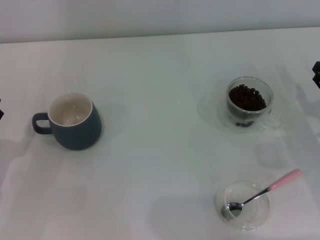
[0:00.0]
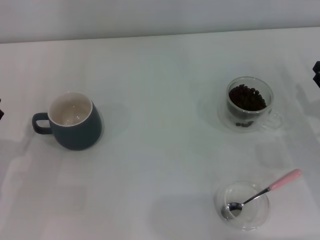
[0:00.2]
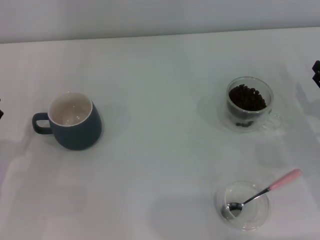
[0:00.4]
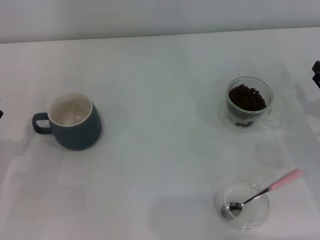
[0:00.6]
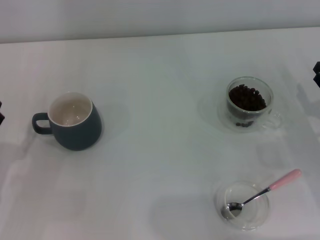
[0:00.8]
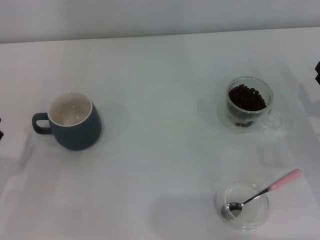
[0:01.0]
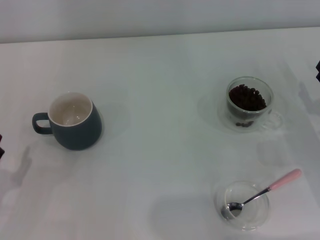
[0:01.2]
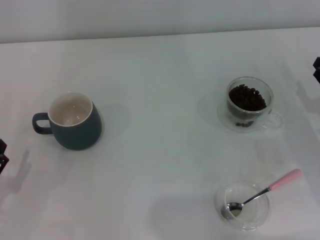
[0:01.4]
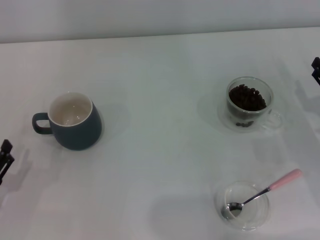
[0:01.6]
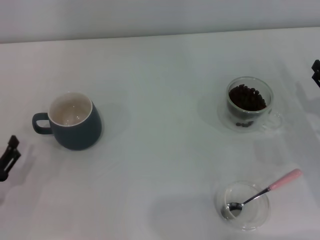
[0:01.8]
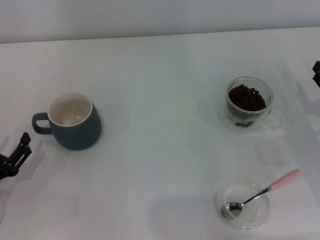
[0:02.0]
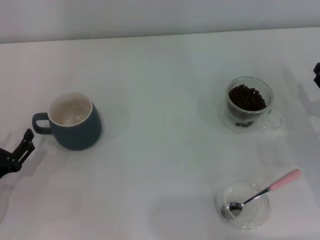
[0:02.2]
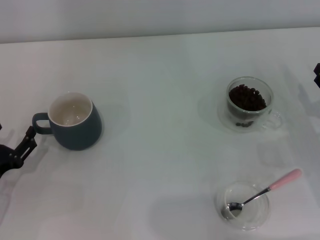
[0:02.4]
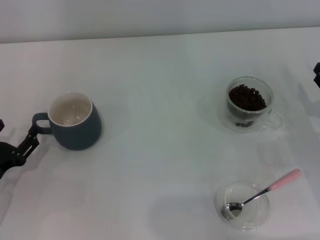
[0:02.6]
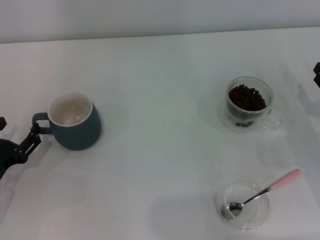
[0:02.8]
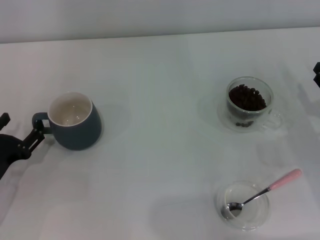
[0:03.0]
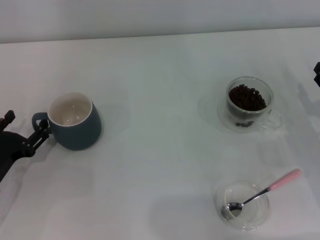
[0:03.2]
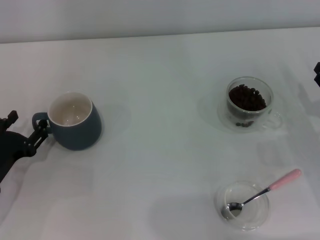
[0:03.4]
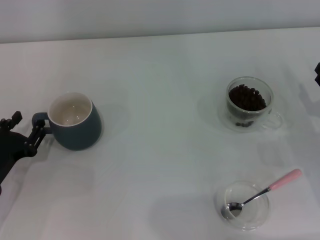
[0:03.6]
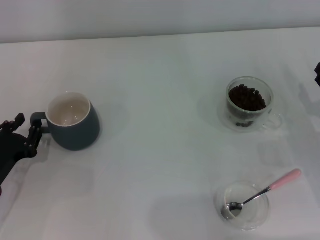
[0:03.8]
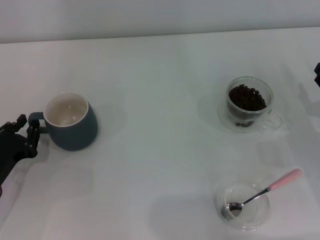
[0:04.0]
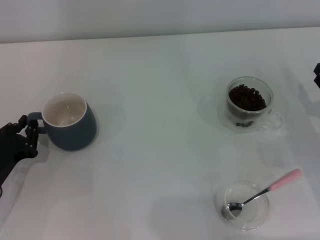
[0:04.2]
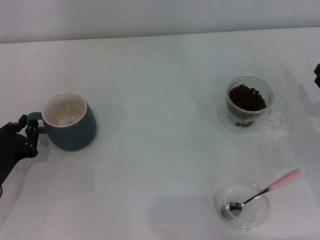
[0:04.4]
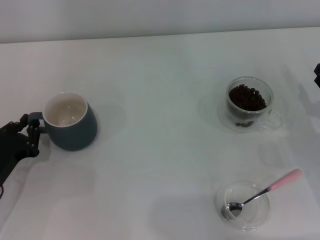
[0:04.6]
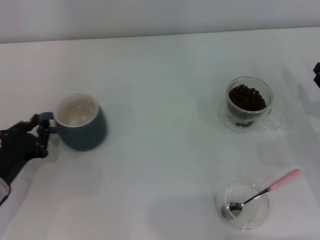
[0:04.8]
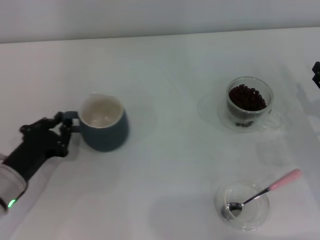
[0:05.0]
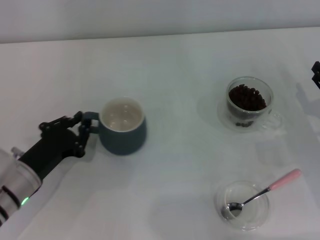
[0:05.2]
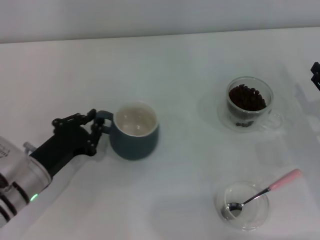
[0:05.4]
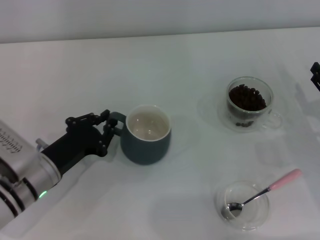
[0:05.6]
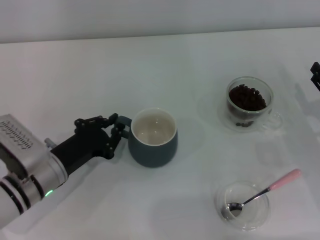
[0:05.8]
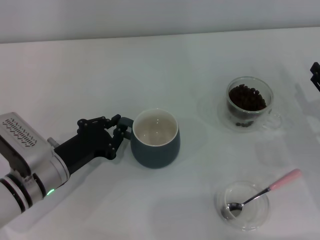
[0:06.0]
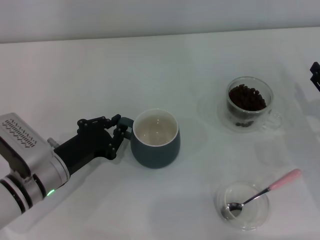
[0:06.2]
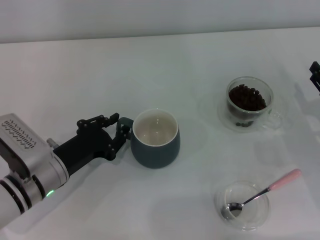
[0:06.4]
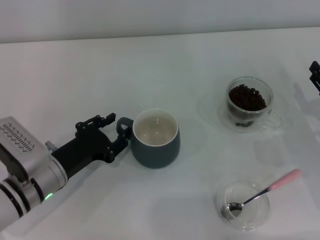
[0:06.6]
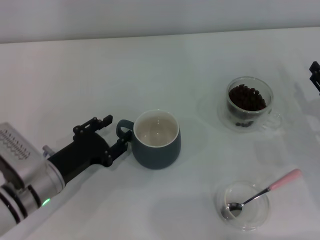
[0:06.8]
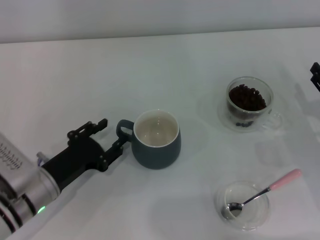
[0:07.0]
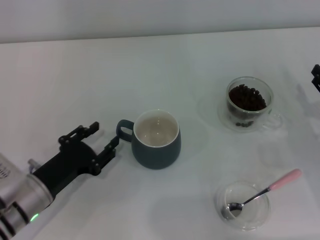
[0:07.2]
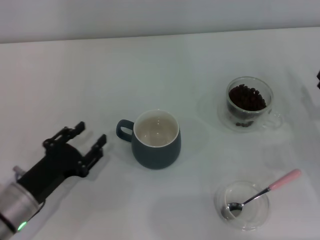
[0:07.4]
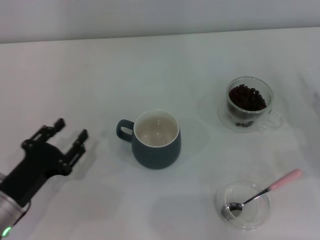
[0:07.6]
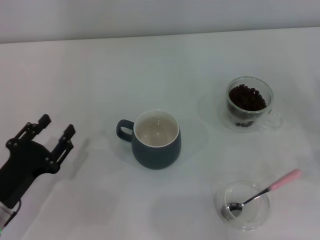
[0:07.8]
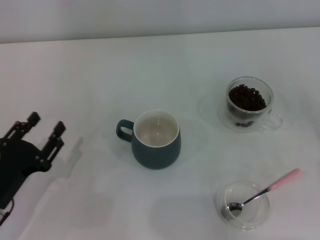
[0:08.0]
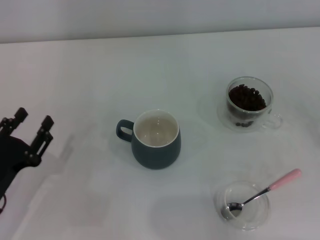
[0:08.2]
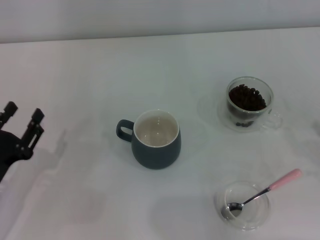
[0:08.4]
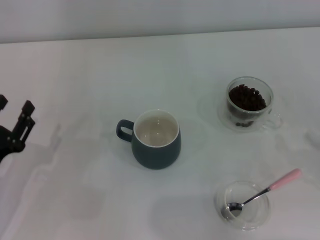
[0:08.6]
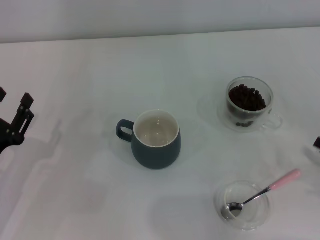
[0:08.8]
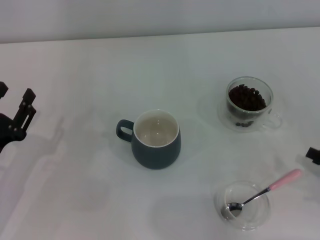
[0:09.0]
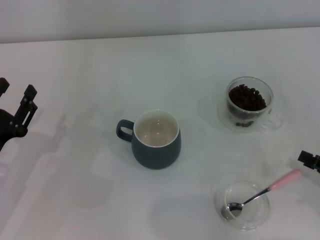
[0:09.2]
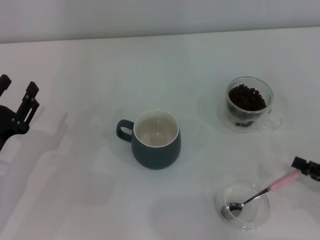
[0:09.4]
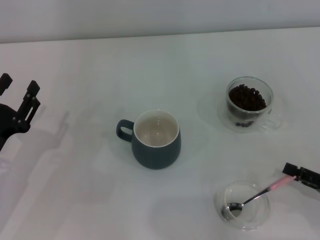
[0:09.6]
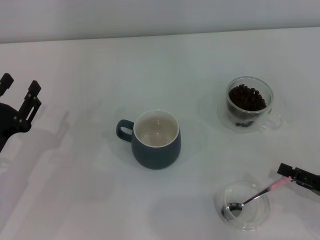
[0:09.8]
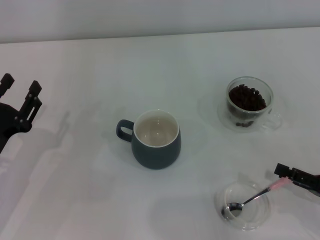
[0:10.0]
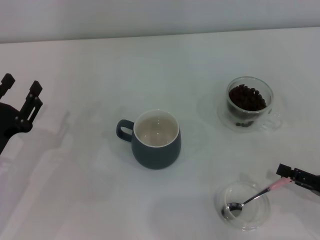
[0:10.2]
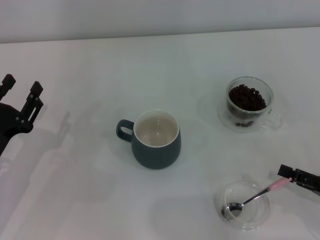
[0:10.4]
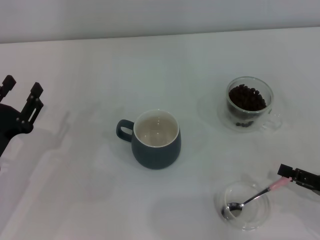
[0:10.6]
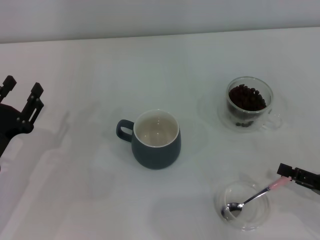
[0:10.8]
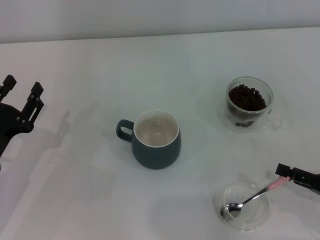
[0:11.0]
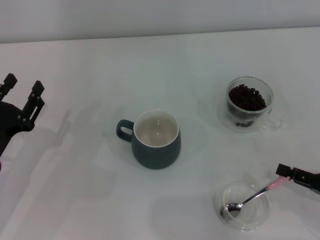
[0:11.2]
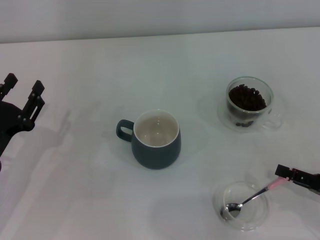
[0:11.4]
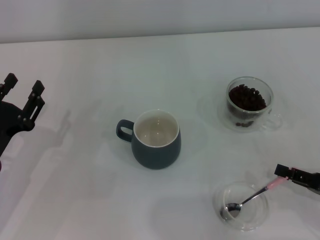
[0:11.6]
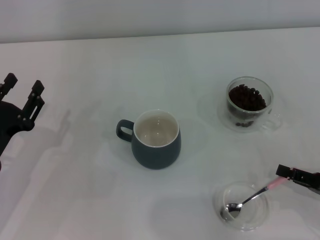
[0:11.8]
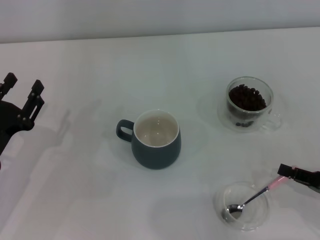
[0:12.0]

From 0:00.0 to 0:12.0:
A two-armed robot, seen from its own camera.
Task of the whole recording: Use a pink spoon to take out the coffee beans from the glass and pour them into the gray cup.
Step, from 0:00.0 to 0:07.2: Move the cup to the center of view with the left gripper.
From 0:00.0 to 0:01.6: The left gripper changes place by some 5 cm.
From 0:01.6 to 0:03.0: The left gripper heads forward, covering about 5 cm.
From 0:03.0 to 0:04.4: The left gripper closes up.
From 0:04.4 to 0:06.0: The left gripper travels to the right by about 10 cm.
From 0:06.0 to 0:07.6: The left gripper moves backward and to the left, approximately 10 cm, and opens up.
From 0:09.0 to 0:10.4: There are only small adjustments of the grippers.
From 0:10.4 to 0:12.0: The right gripper closes.

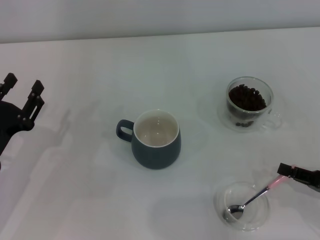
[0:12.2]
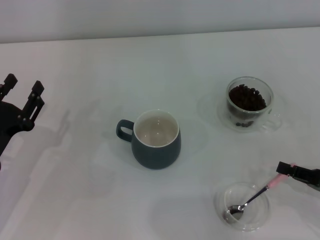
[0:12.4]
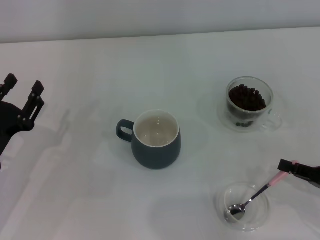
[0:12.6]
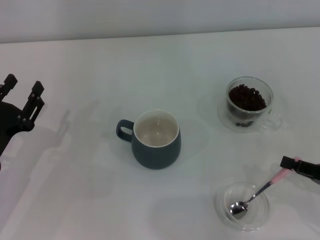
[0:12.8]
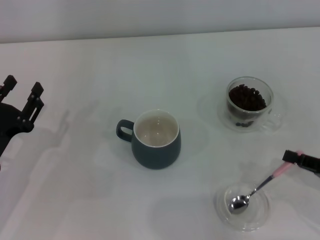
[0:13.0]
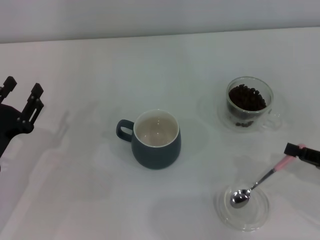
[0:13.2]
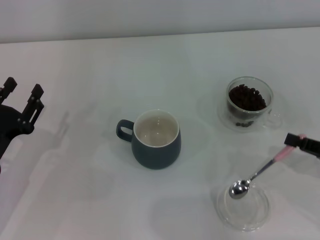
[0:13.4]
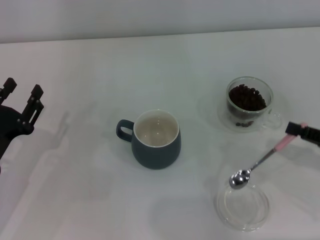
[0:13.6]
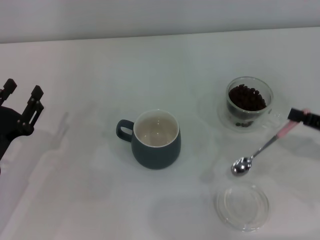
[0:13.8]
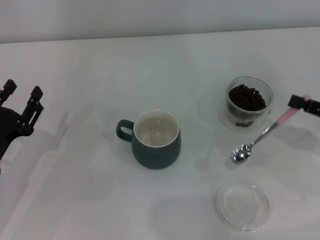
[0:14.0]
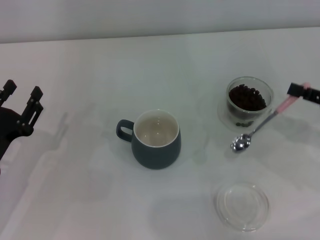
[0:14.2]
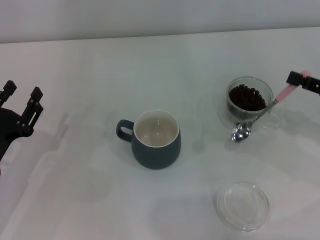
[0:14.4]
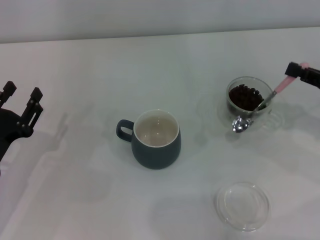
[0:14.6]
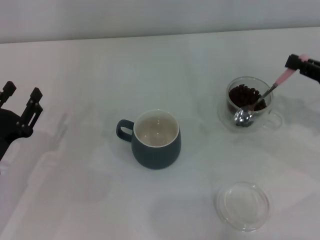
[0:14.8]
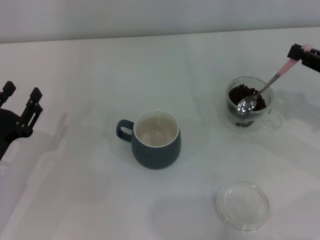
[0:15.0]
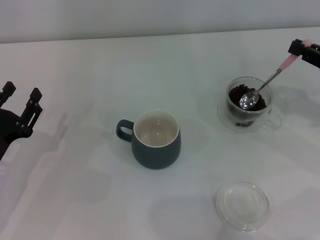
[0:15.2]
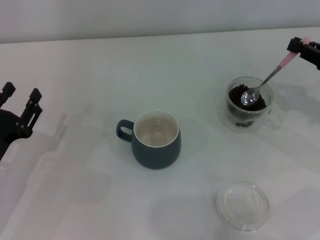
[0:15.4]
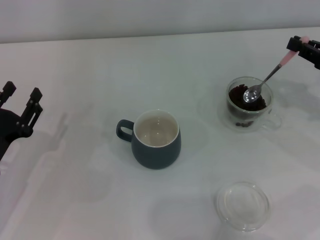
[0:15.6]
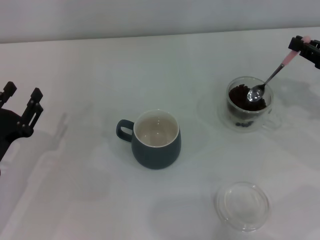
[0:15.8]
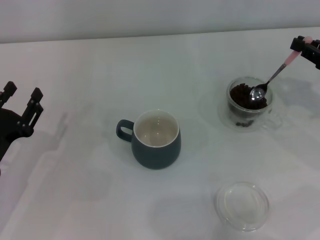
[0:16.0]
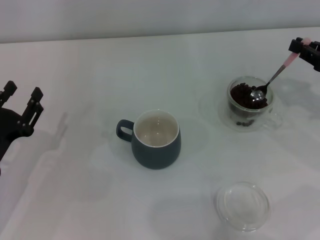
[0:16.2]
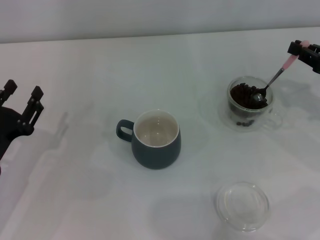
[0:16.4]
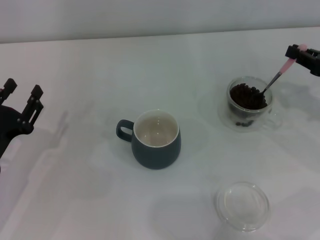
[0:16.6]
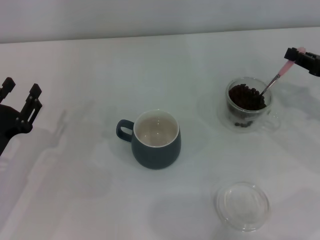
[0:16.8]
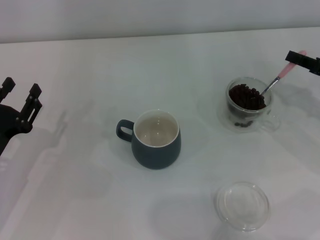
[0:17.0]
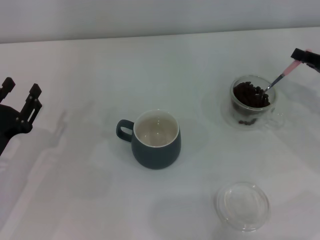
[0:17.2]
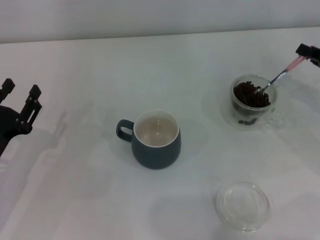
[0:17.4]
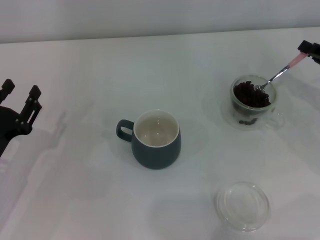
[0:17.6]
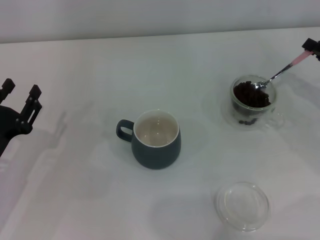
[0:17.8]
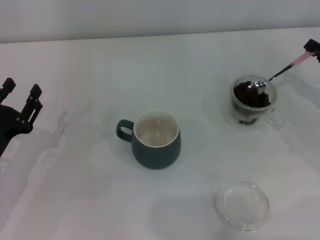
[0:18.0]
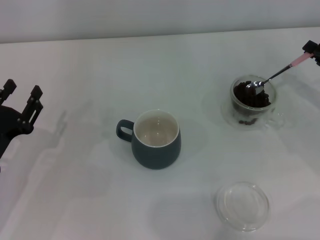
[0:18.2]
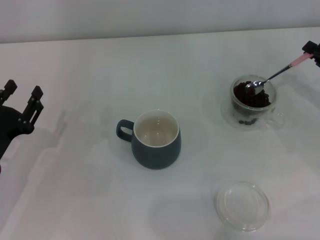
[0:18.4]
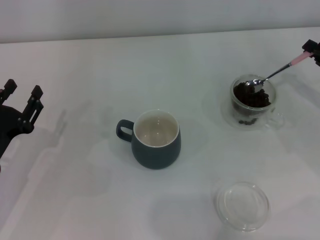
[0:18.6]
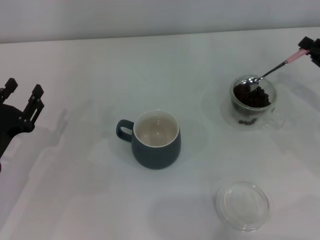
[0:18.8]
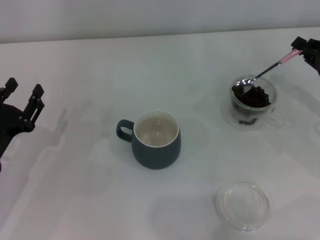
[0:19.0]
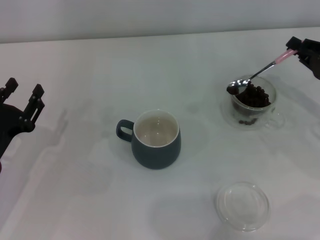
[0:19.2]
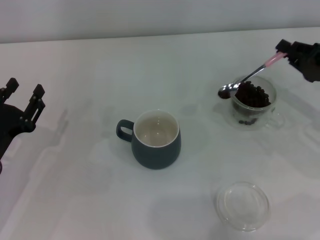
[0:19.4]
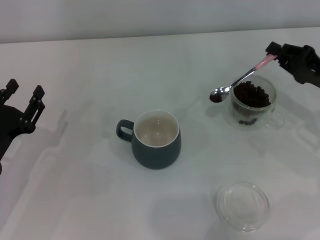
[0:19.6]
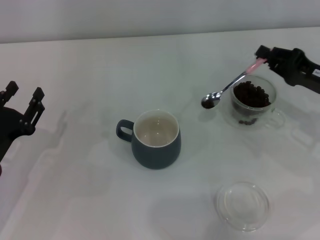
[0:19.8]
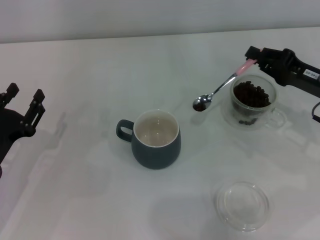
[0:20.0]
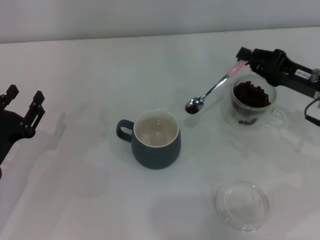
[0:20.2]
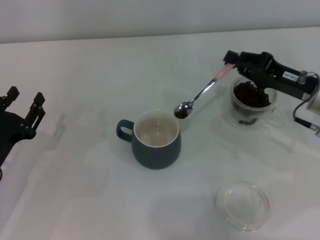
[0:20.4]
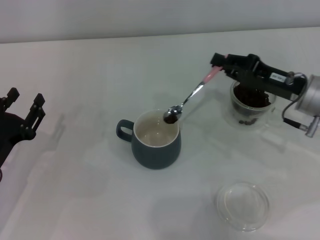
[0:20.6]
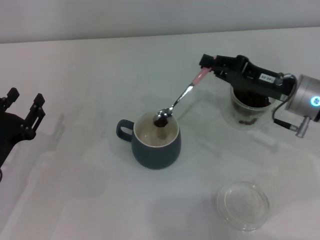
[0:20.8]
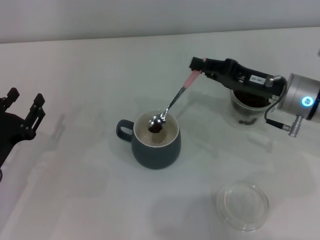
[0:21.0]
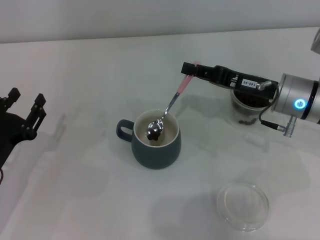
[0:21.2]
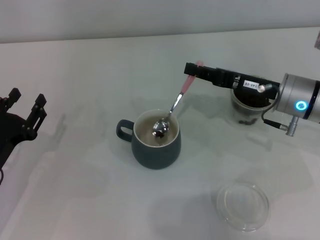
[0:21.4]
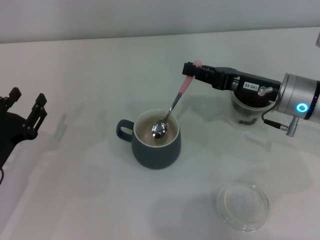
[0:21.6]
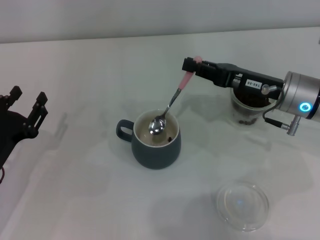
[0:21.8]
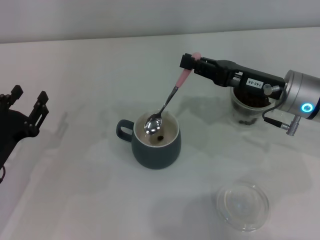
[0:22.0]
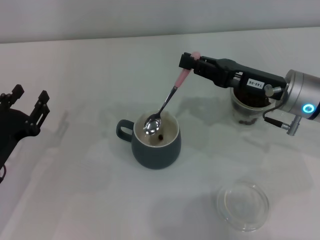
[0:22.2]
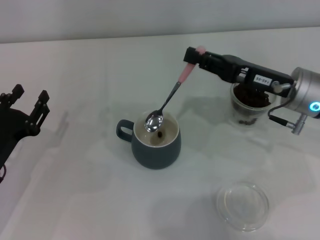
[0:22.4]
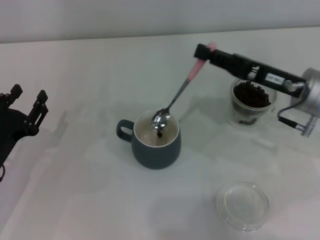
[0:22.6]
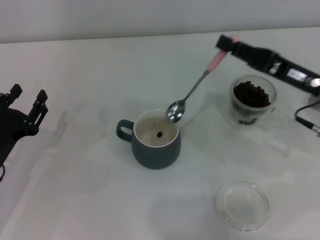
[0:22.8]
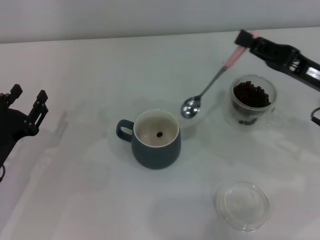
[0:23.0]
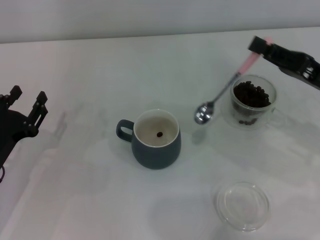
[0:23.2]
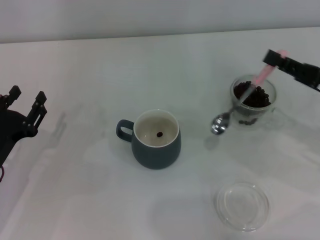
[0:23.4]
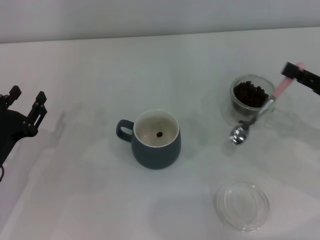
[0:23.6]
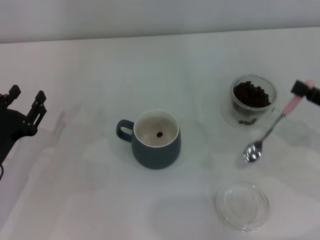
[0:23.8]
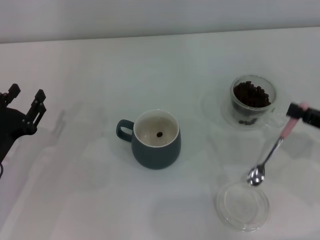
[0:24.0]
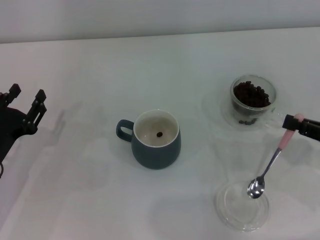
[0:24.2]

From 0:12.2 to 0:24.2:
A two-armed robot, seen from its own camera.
Task of the whole recording: Use a pink spoon to take out the coffee beans from the glass and pour them into the gray cup.
Step, from 0:13.4 to 0:21.6: Scoop a spoonful of beans into the cup with the right gripper.
From 0:12.2 to 0:13.8: The right gripper heads upward and forward, covering some 10 cm.
From 0:13.8 to 0:15.2: The right gripper shifts about 5 cm forward.
From 0:15.2 to 0:16.6: The grippers stay close to where they were, moving slightly.
From 0:18.2 to 0:19.8: The right gripper moves to the left, roughly 5 cm.
From 0:19.8 to 0:21.2: The right gripper shifts about 10 cm to the left.
From 0:21.2 to 0:22.6: The grippers make only small movements.
From 0:22.6 to 0:24.2: The right gripper travels to the right and backward by roughly 15 cm.
